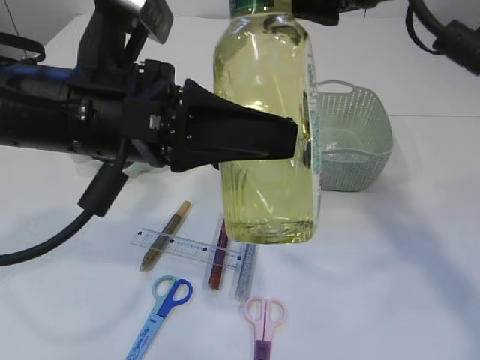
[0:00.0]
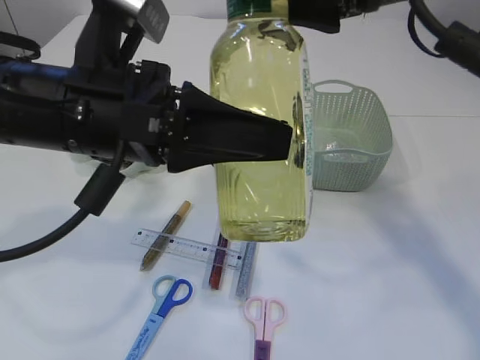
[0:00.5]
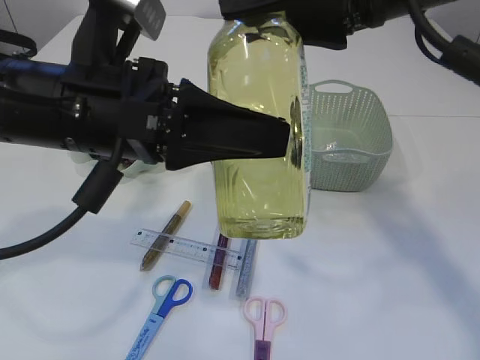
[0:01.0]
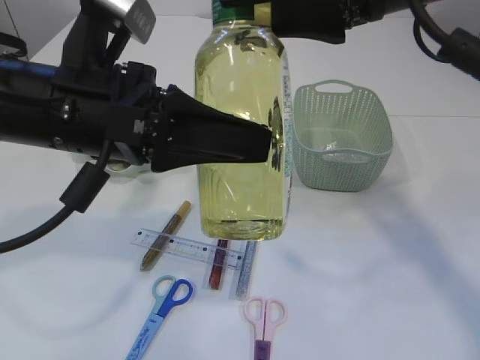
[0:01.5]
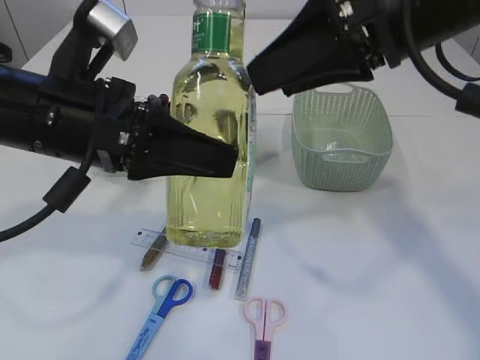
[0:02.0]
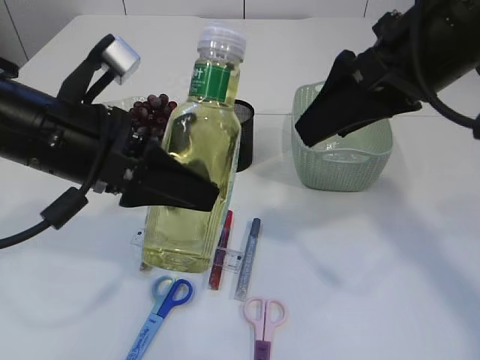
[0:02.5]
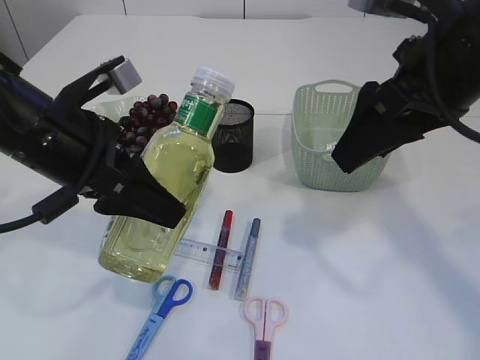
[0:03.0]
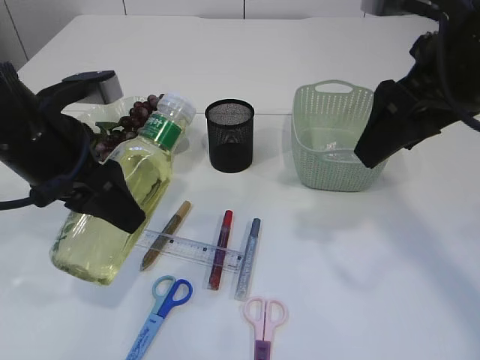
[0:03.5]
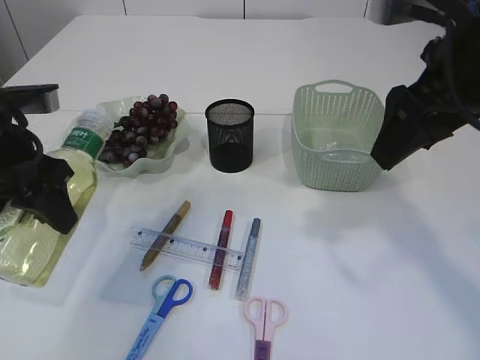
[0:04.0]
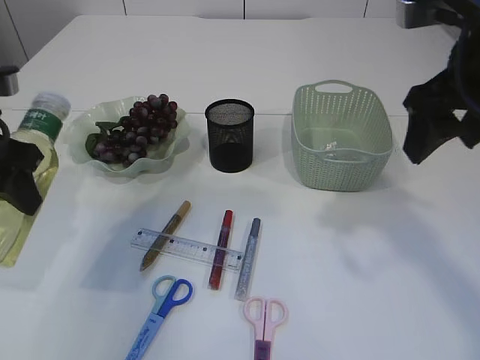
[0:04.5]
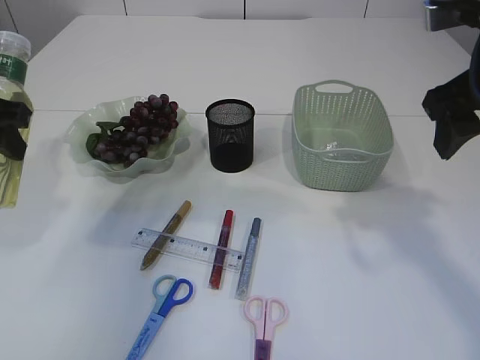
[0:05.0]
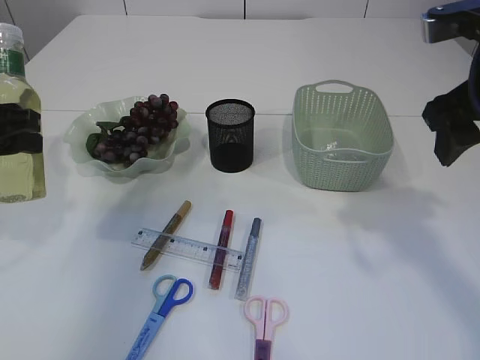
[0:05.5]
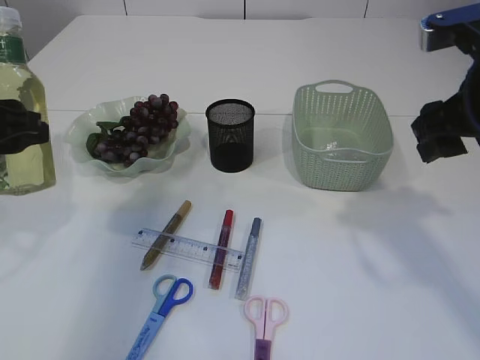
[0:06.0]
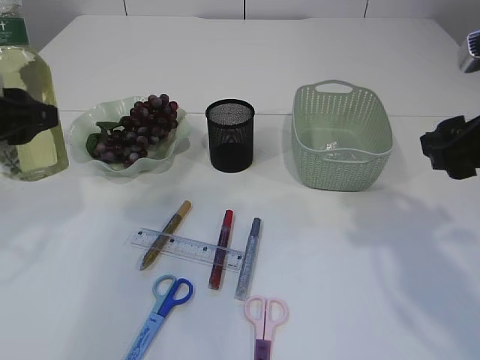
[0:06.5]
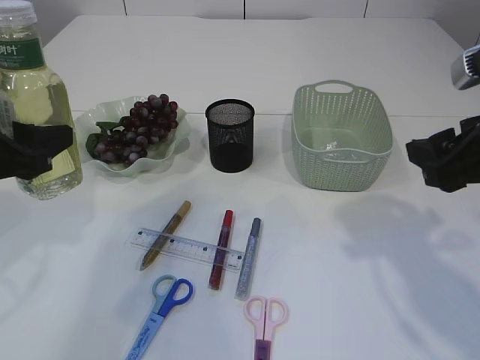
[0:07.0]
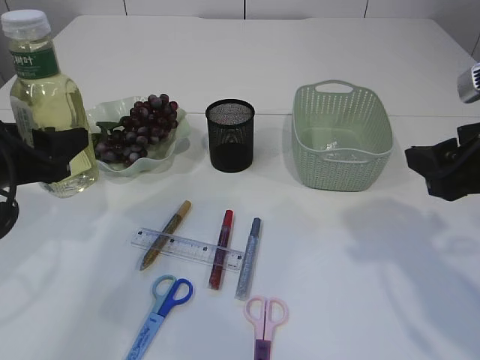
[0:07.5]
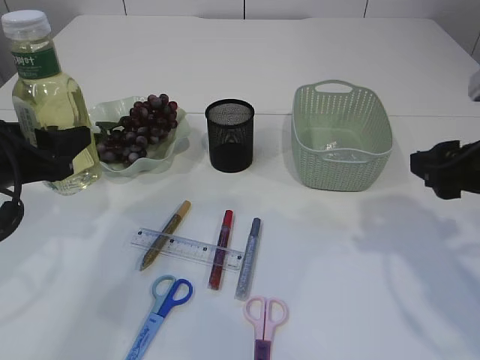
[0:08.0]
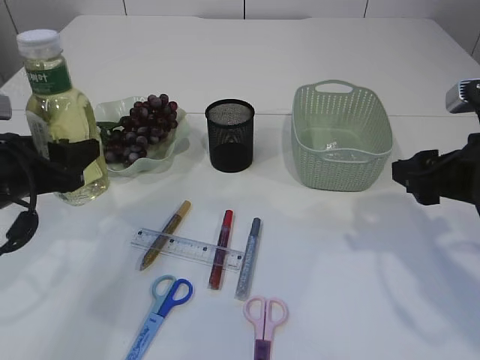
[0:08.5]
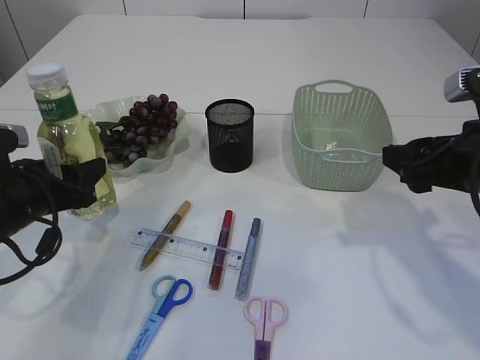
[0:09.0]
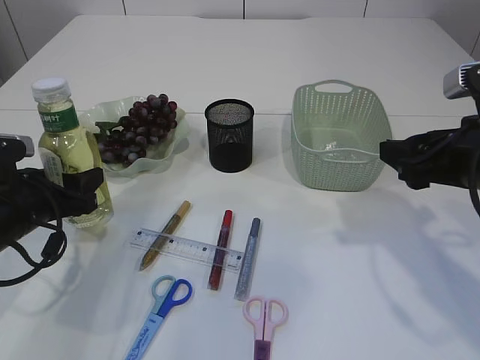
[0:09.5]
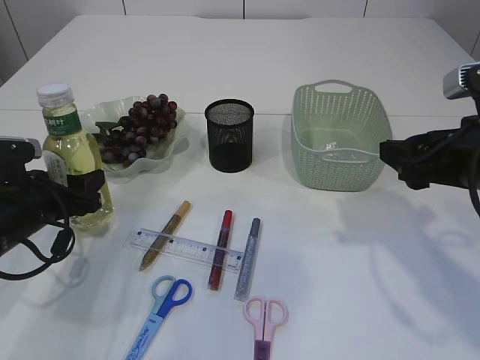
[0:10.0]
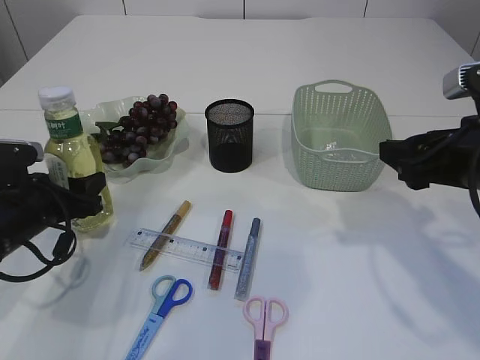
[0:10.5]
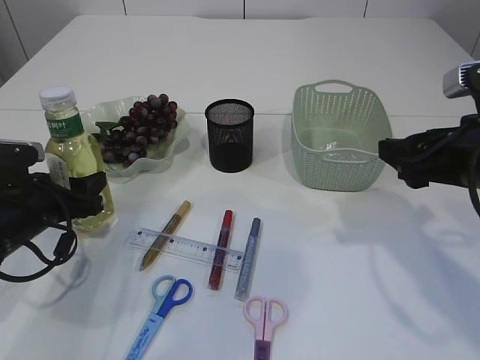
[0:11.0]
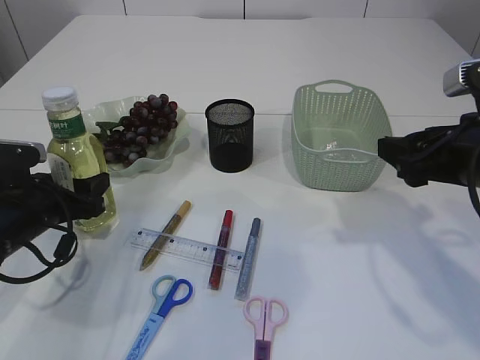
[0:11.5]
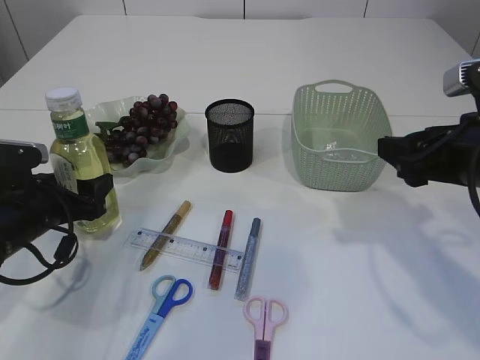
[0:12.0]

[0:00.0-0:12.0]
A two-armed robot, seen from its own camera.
Step, 0:00.0 to 0:02.0: transfer the bottle to the left arm.
0:02.0 to 0:04.0: The right gripper is displaced to the right by about 5 cm. Meanwhile the left gripper goes about 10 cm to the left.
0:04.0 to 0:06.0: The right gripper moves roughly 5 cm.
0:06.0 to 0:08.0: Both grippers move downward, roughly 5 cm.
0:08.0 to 0:10.0: The left gripper is displaced downward by about 10 cm.
0:10.0 to 0:12.0: Both grippers stay about where they are.

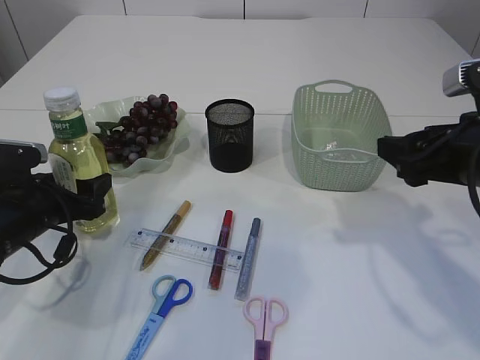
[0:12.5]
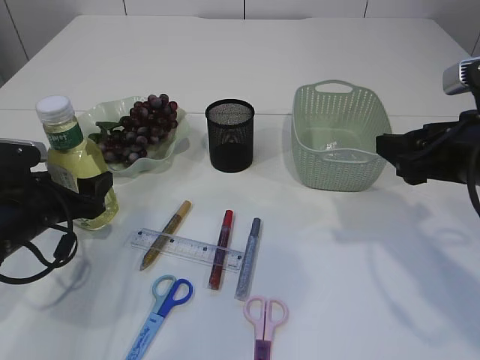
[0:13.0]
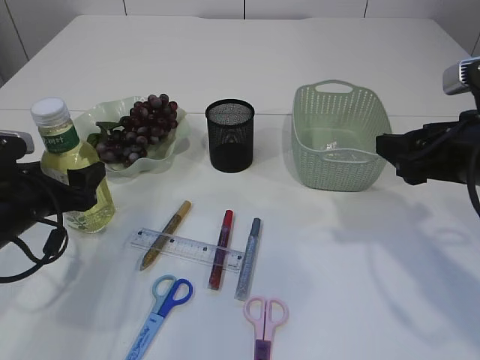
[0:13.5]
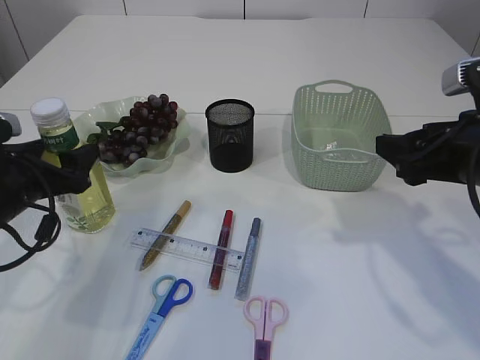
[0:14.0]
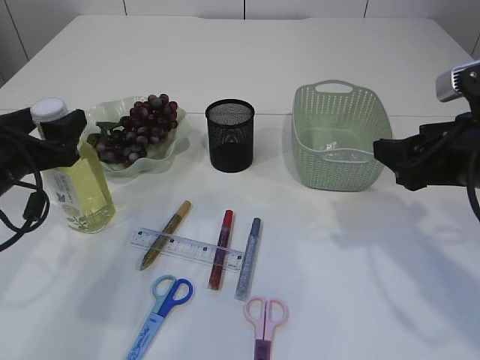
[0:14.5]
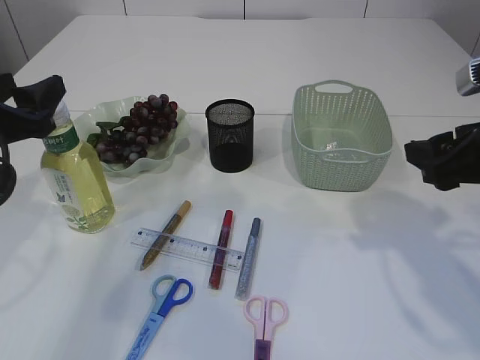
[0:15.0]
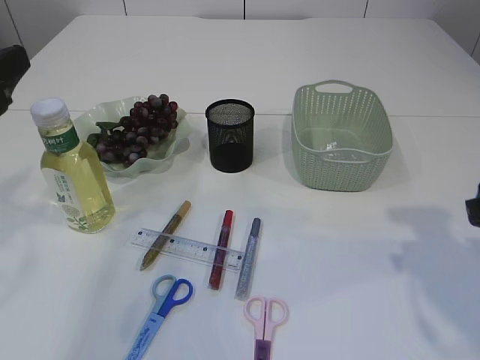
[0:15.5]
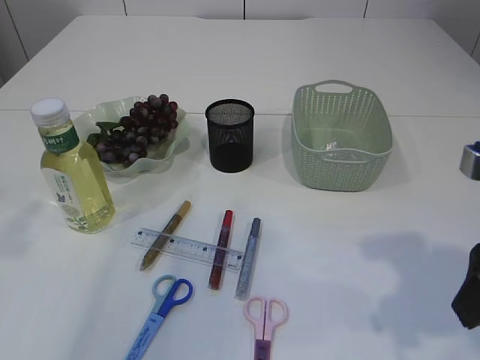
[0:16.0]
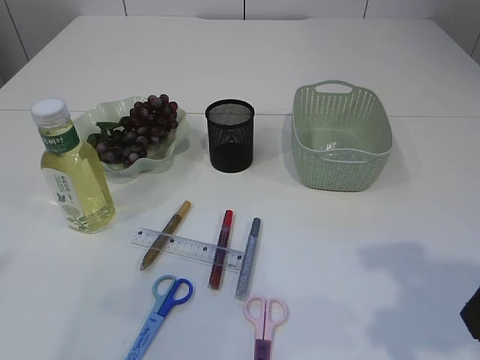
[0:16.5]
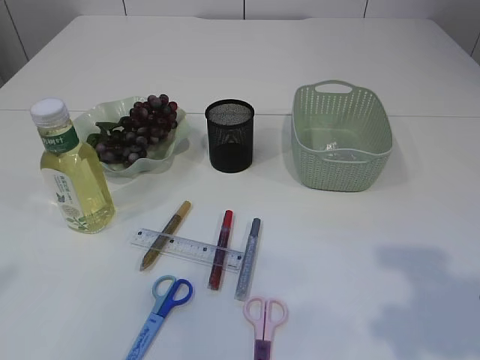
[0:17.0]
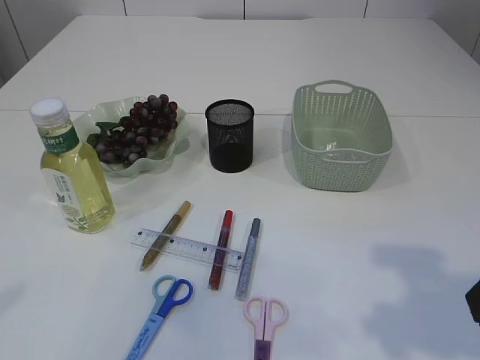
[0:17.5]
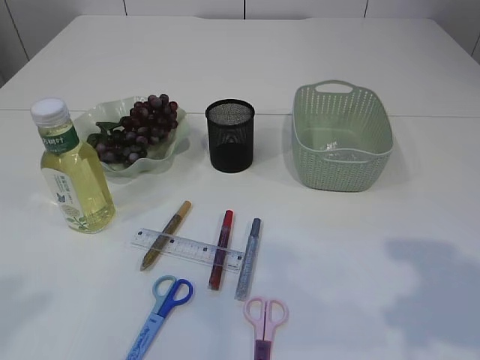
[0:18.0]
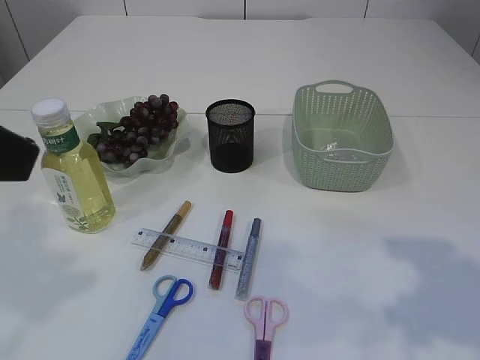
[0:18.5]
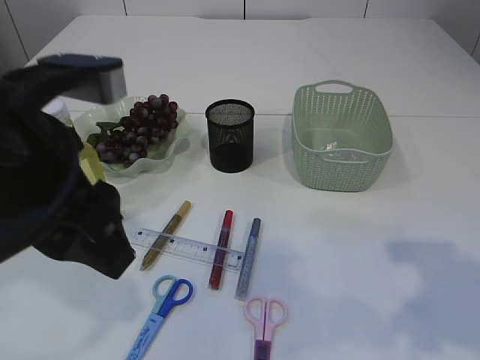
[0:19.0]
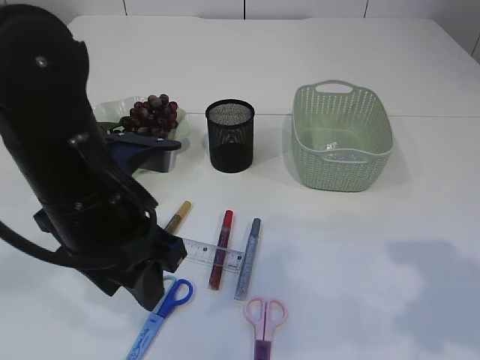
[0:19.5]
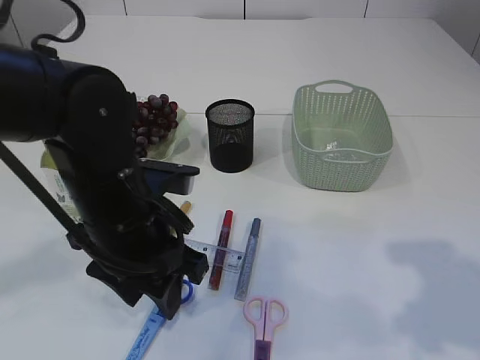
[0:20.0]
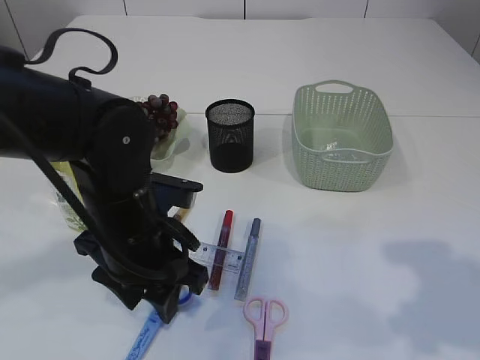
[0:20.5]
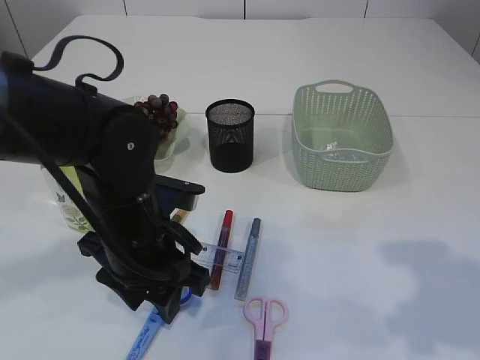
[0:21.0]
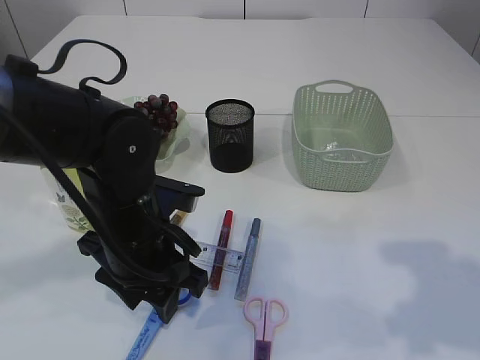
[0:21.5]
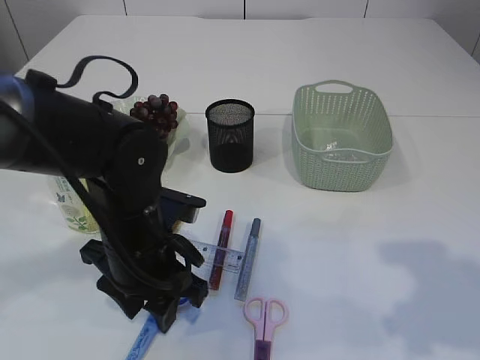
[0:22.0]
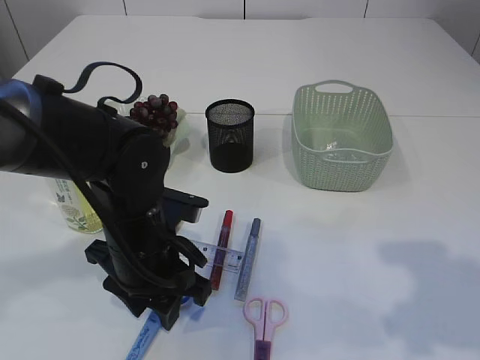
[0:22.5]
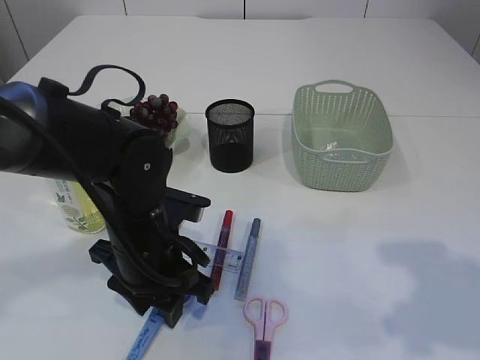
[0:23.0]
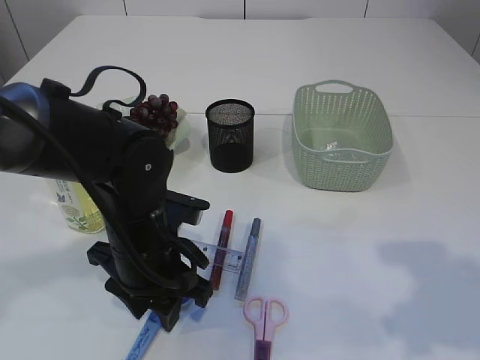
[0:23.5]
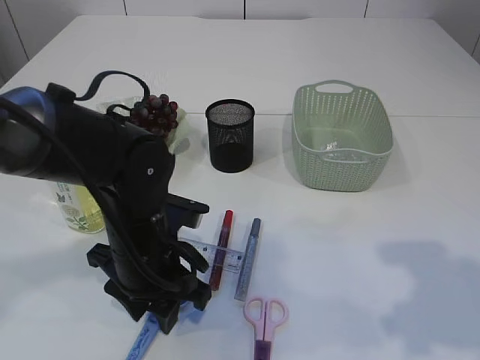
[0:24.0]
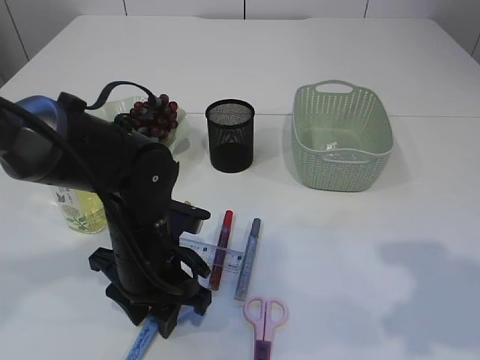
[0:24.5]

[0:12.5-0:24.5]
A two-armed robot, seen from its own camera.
Step, 0:12.5 to 0:15.0: Place the bottle.
0:12.5 to 0:14.5: The left gripper heads upward, covering roughly 5 cm.
0:14.5 to 0:16.5: The right gripper goes approximately 10 cm backward; the left gripper heads backward and upward, covering roughly 20 cm.
0:16.5 to 0:18.5: The left gripper heads to the right and upward, covering approximately 10 cm.
0:18.5 to 0:20.5: The left gripper goes some 25 cm downward, to the right and forward.
0:20.5 to 0:24.5: The grippers make only small movements.

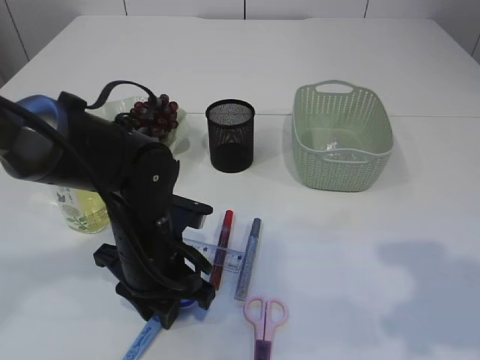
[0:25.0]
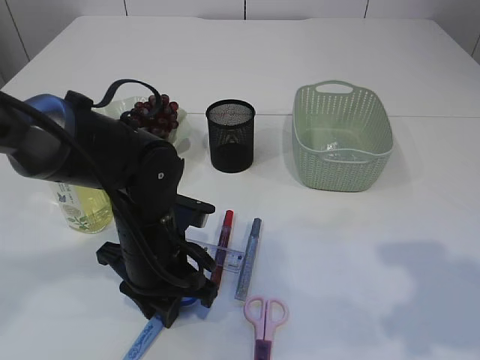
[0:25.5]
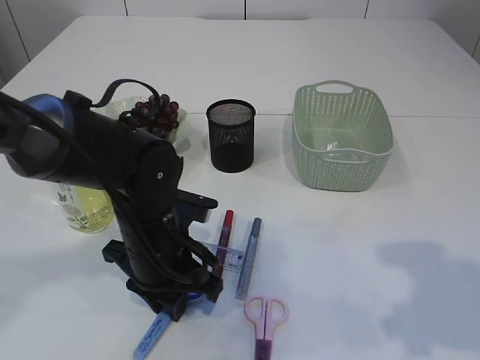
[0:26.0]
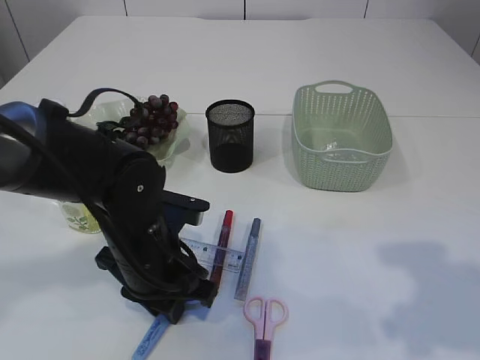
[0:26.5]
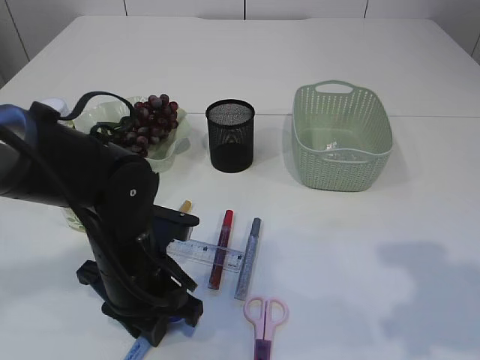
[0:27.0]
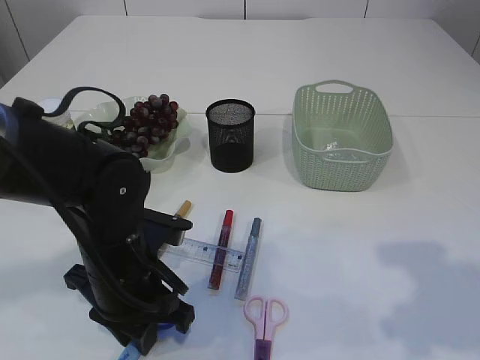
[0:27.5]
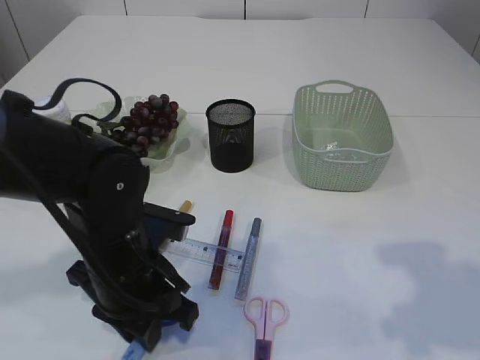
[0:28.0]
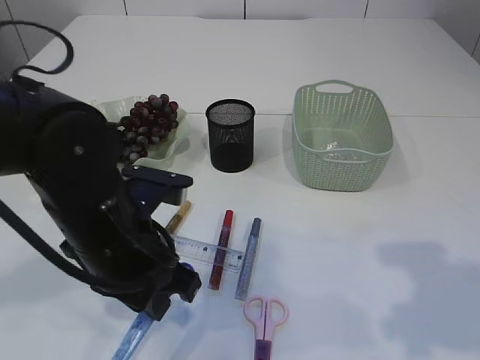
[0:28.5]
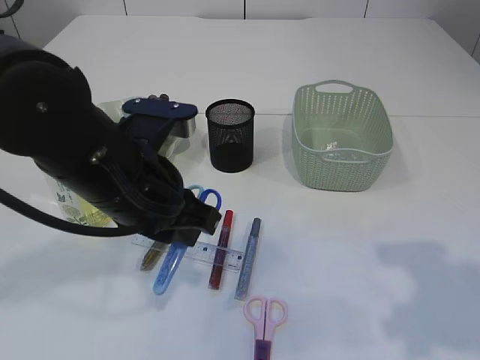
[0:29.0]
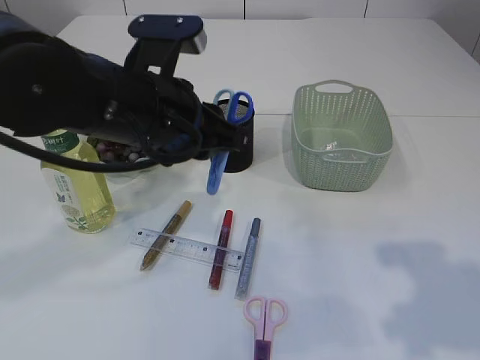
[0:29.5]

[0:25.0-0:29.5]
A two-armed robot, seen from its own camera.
Step, 0:25.0 to 0:28.5: pick up the blue scissors.
0:25.0 to 0:27.0: There are only small adjustments of the grippers.
0:27.0 to 0:29.5: The left gripper is displaced upward by about 15 cm.
